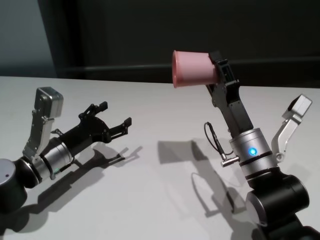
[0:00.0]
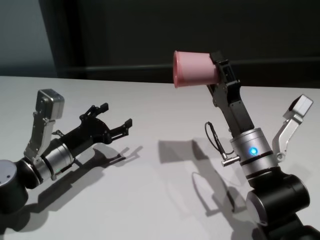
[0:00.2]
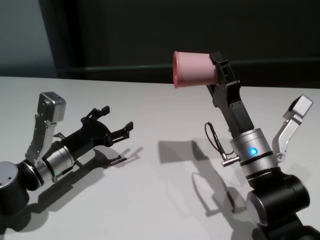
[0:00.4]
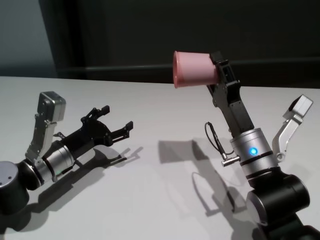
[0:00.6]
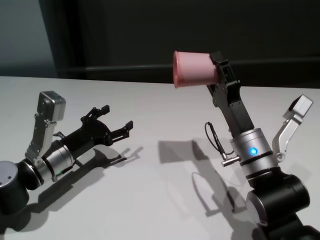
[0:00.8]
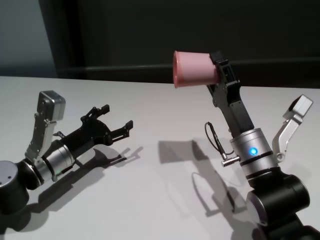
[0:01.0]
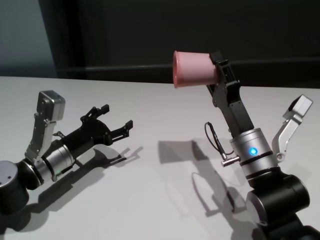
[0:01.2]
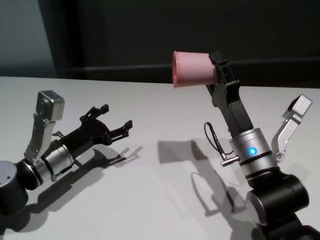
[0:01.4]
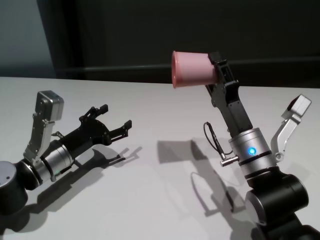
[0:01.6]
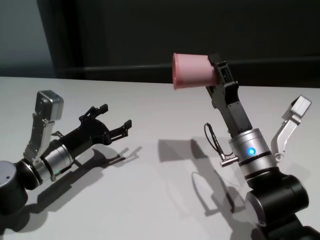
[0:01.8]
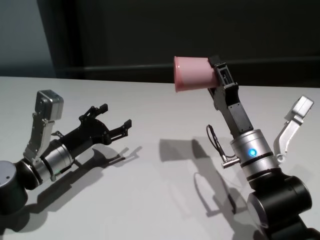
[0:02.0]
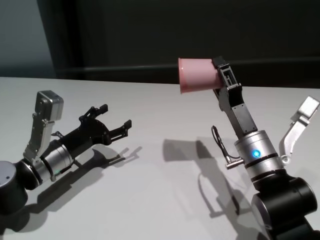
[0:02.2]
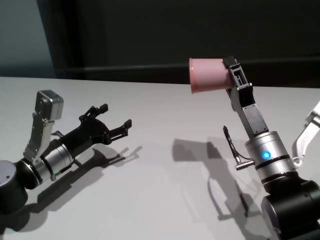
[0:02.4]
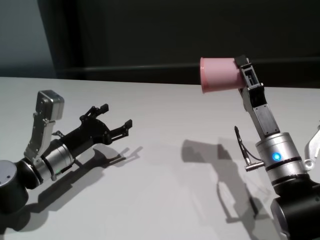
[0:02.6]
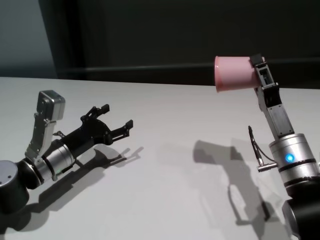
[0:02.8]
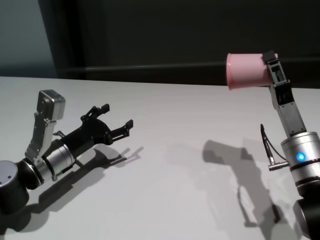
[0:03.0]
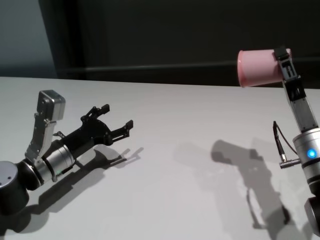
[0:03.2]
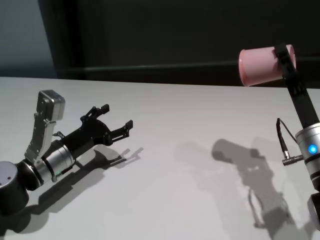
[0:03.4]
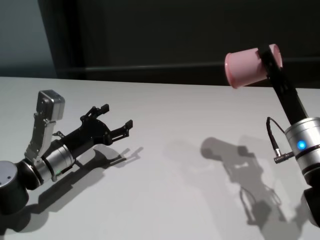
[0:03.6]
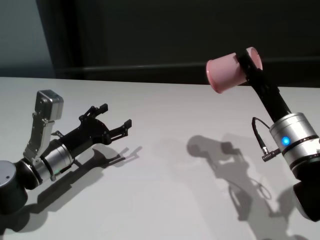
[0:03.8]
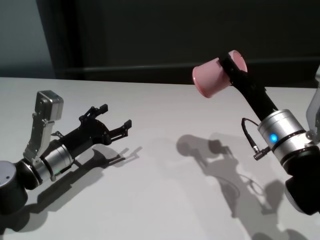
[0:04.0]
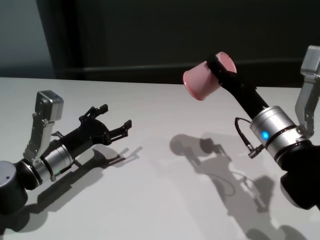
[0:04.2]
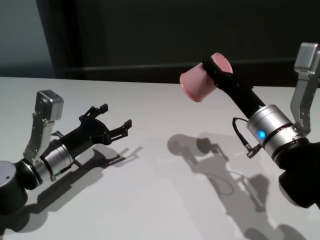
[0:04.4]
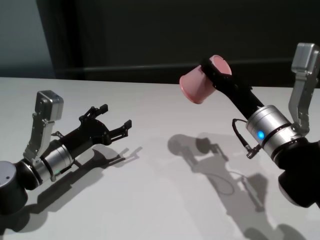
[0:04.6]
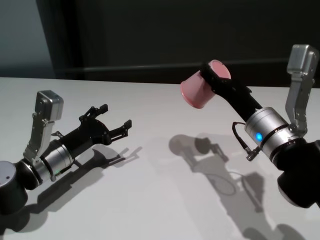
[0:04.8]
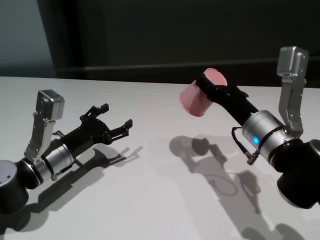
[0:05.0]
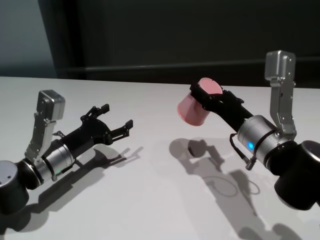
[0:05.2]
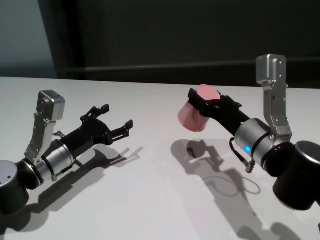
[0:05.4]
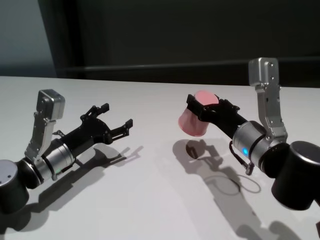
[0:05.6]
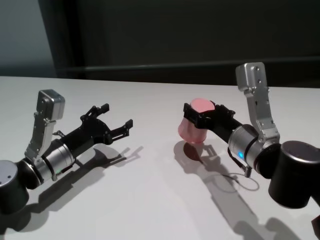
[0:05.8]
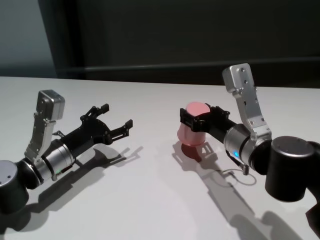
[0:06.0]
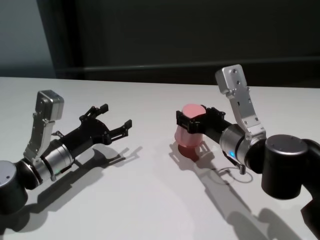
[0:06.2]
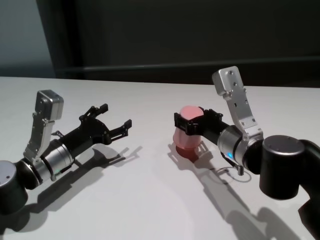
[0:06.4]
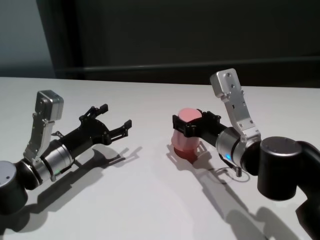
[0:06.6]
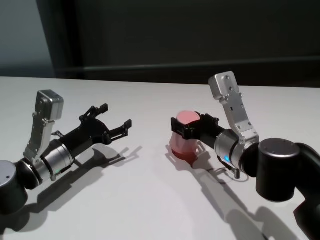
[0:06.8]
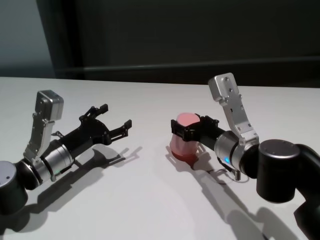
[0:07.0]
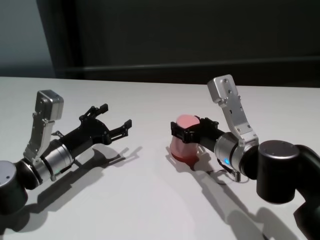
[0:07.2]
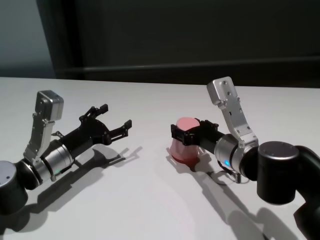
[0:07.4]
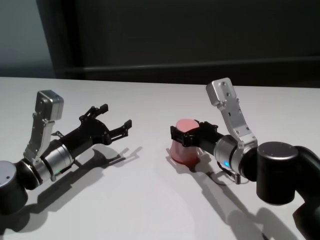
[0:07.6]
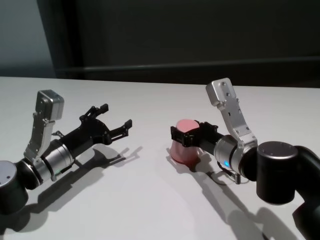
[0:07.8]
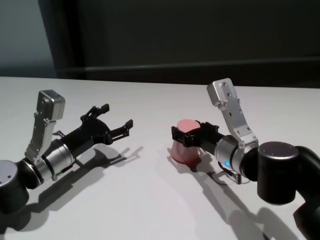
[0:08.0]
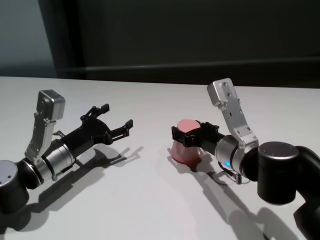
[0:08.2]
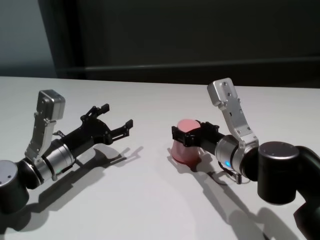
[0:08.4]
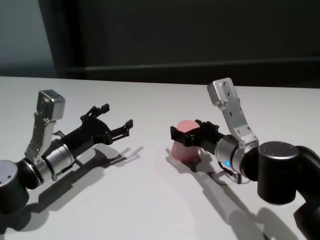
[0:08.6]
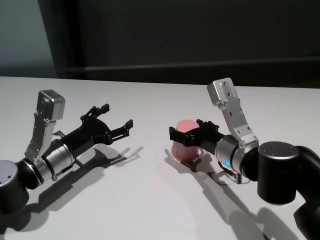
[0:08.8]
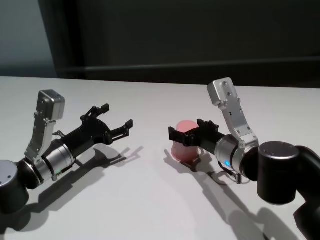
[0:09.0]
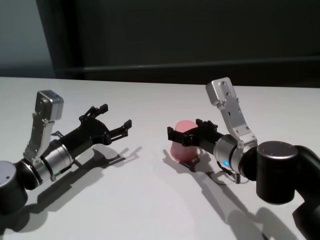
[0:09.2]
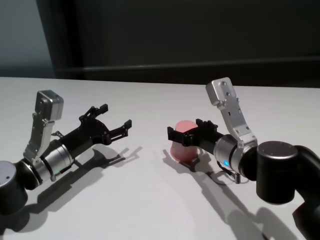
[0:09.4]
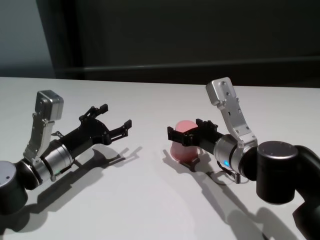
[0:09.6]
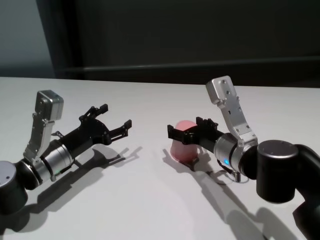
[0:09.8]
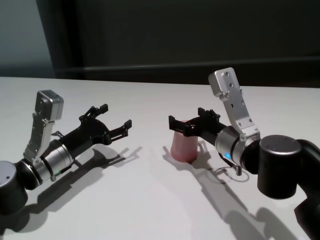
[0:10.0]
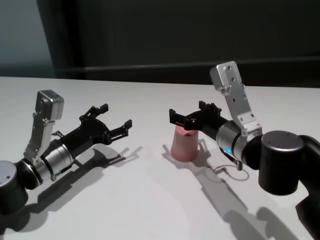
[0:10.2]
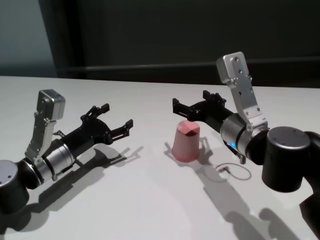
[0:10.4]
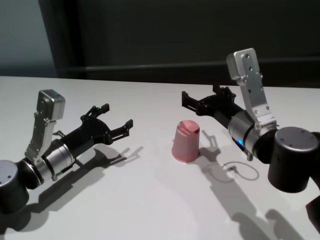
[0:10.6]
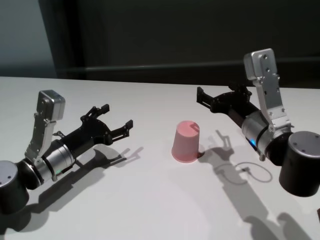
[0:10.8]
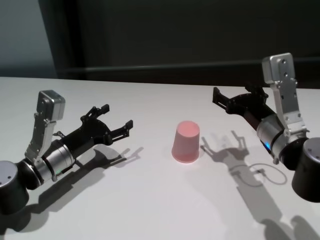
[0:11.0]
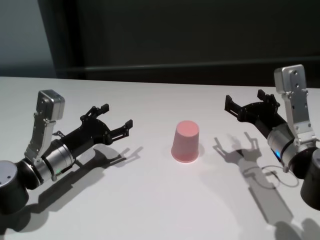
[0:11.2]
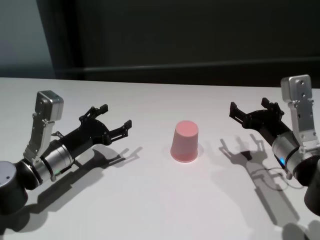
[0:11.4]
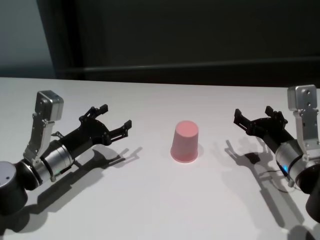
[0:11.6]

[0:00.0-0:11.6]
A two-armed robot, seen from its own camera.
Task of the whole recording: On the white table pick up the cup with one hand and transfer it to the other hand before turning it over.
Step, 0:00.0 to 0:09.0: Place the cup on the table with right gripper.

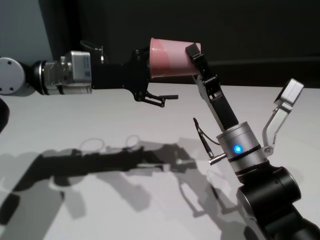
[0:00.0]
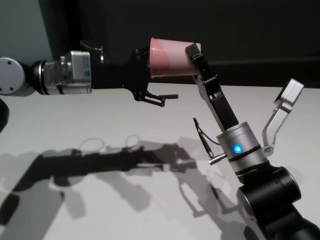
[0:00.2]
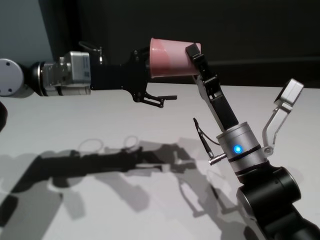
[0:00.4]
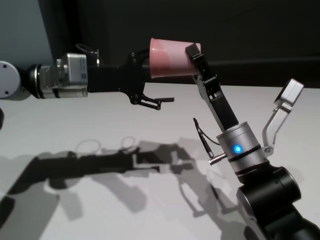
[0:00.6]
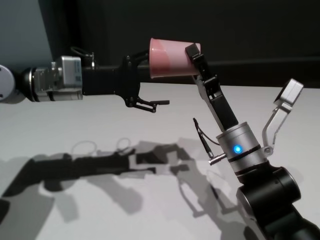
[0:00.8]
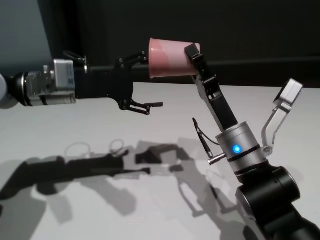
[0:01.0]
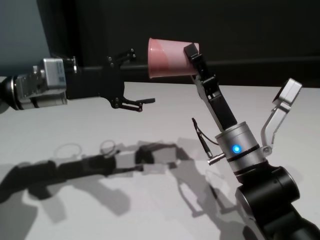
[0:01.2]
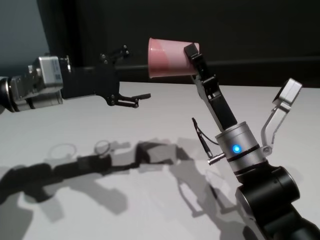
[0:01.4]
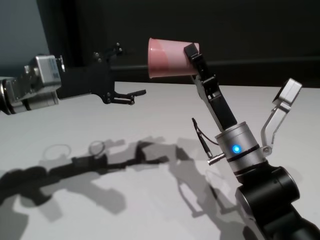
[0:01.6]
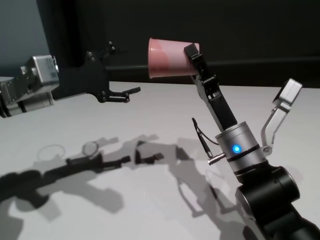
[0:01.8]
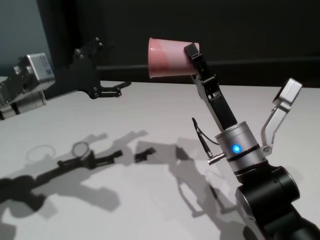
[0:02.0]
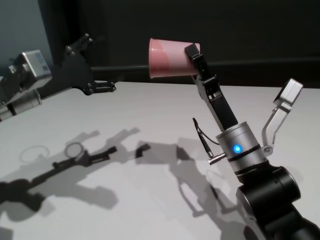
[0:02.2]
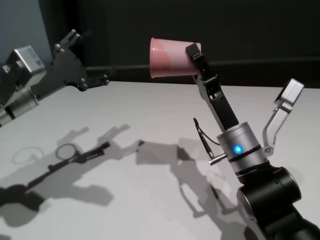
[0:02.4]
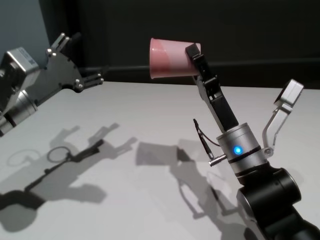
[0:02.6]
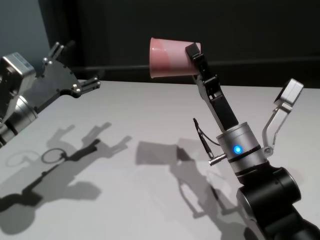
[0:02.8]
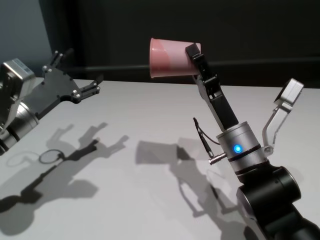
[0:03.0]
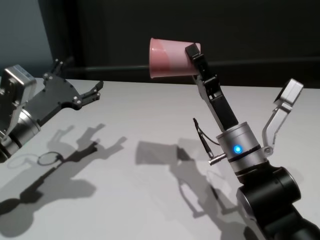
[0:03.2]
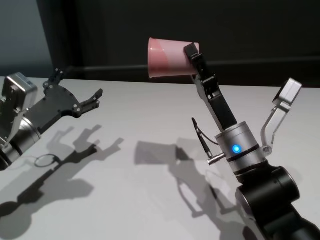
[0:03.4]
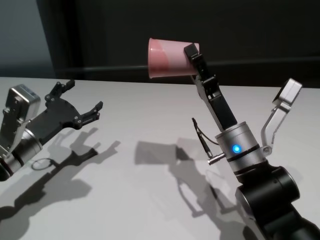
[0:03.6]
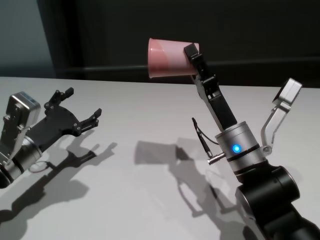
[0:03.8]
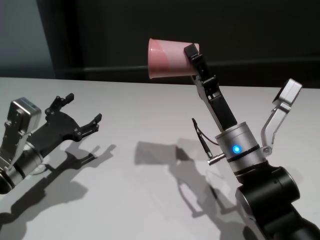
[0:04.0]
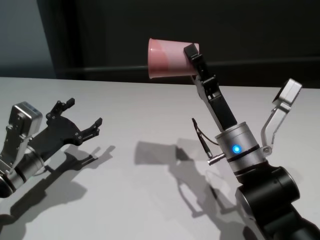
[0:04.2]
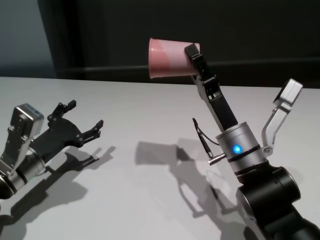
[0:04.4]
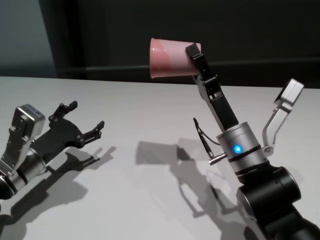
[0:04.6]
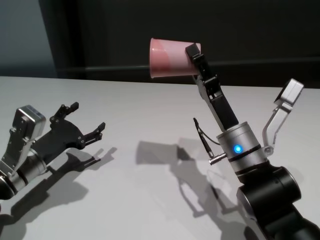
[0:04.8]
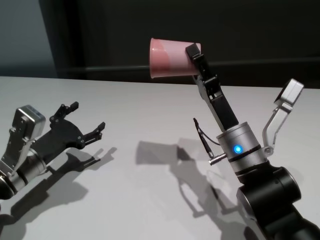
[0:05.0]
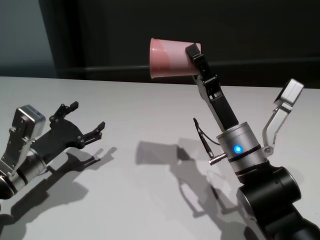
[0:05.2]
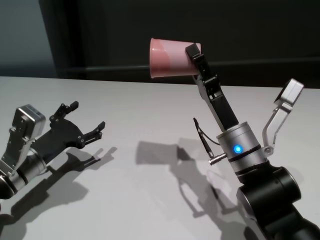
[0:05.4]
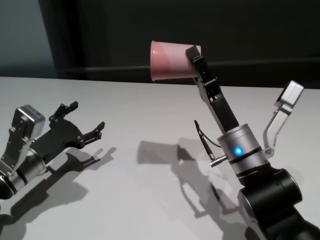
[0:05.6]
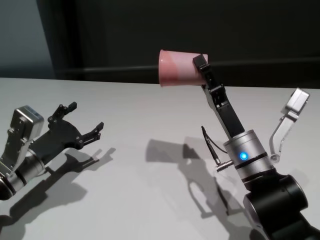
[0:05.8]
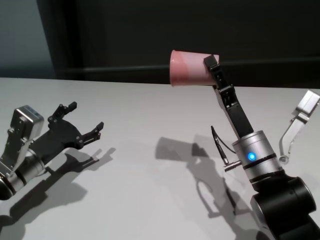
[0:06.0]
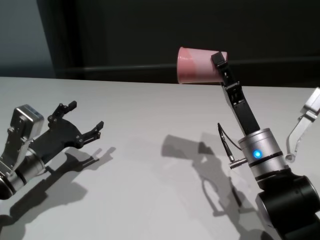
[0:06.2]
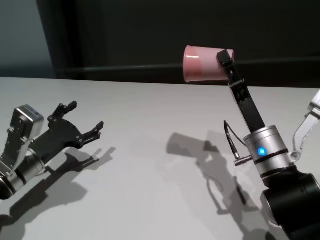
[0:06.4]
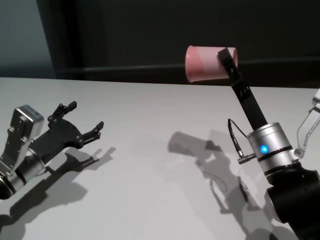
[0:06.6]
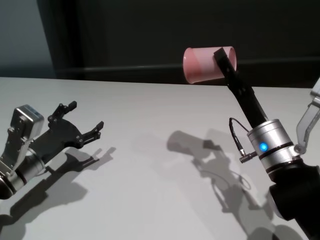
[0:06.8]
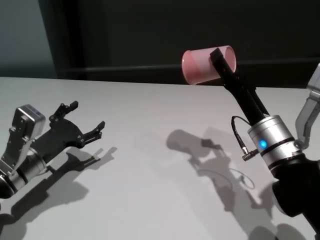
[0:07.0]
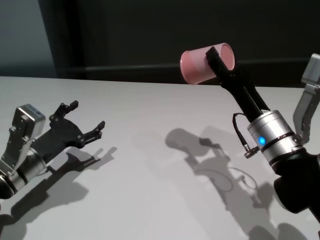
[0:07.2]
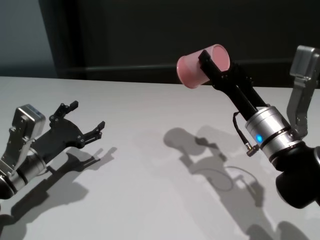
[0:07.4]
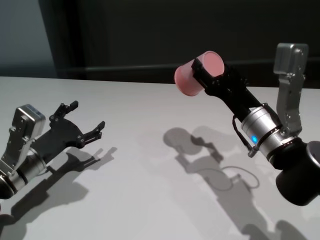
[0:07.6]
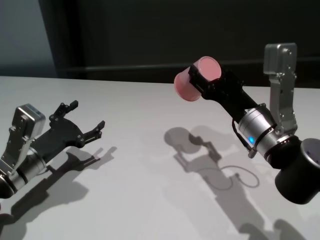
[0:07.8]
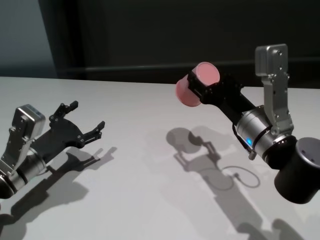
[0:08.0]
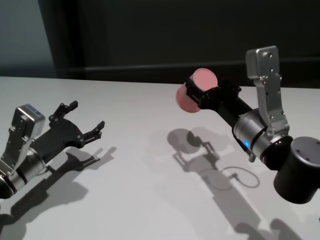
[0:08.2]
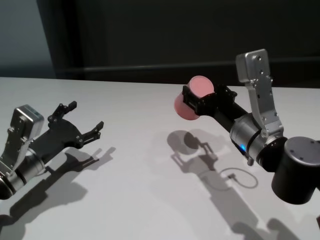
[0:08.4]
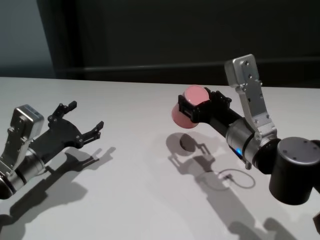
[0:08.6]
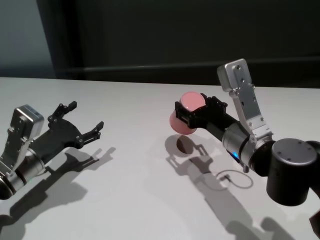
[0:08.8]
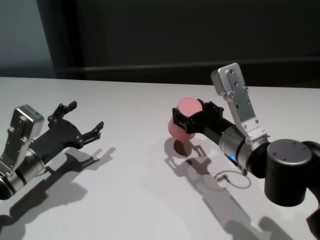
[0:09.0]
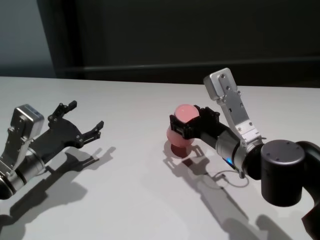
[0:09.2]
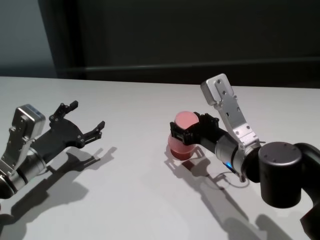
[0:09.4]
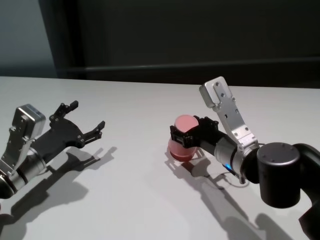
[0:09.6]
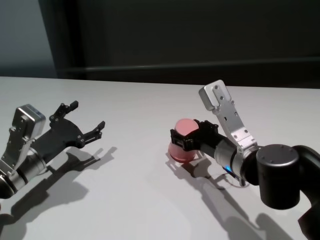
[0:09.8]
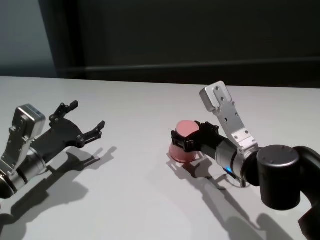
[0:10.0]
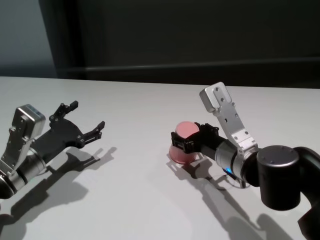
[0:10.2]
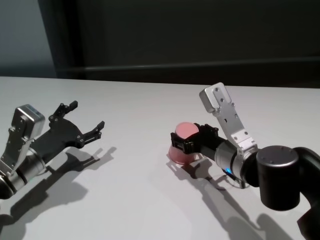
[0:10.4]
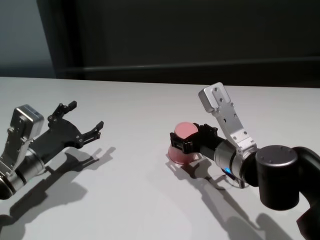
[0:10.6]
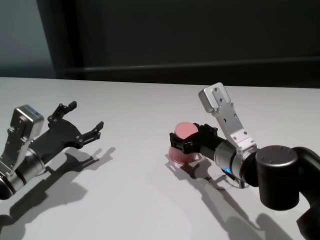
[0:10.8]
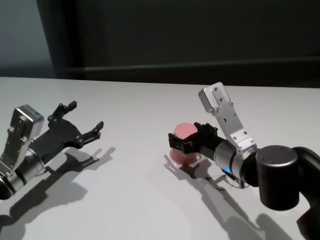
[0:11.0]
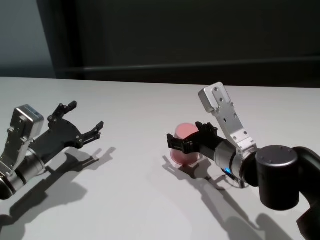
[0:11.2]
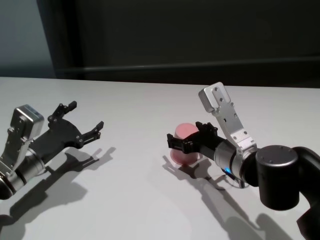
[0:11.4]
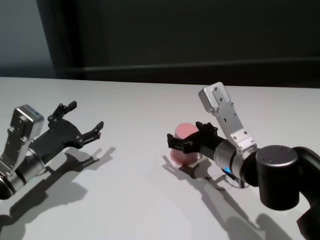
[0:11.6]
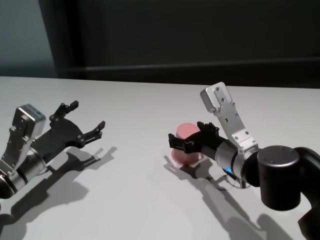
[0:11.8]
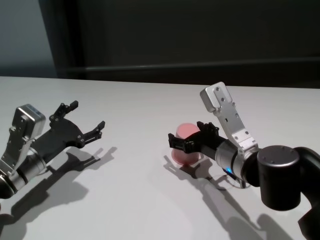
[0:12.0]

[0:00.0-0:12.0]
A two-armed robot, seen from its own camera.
Task of the whole recording: On the white table pick up the cup with one hand and transfer it to the other hand before turning it over.
Step, 0:01.4 to 0:11.2: Place the cup on the table with right gripper.
